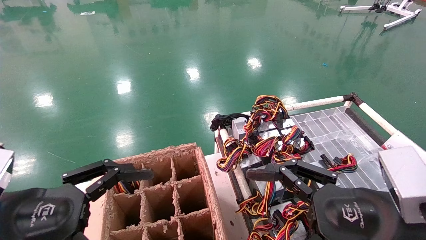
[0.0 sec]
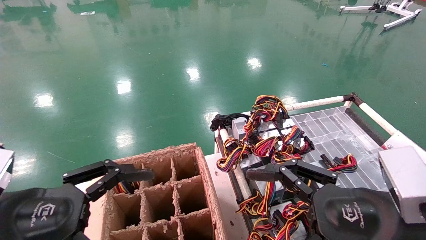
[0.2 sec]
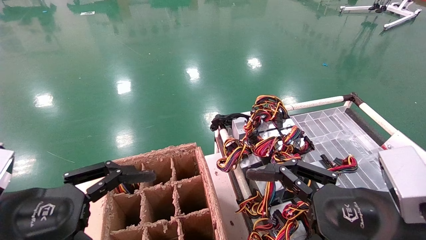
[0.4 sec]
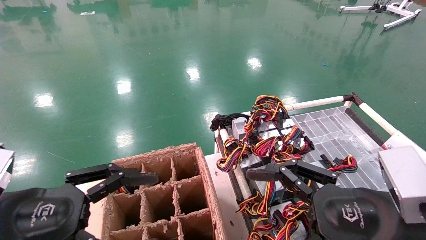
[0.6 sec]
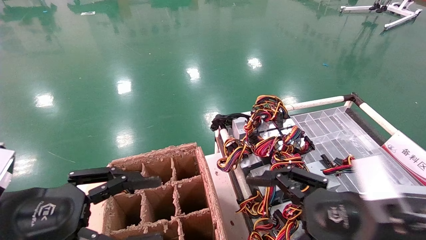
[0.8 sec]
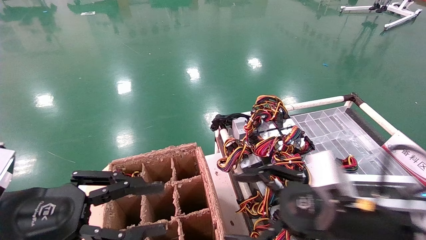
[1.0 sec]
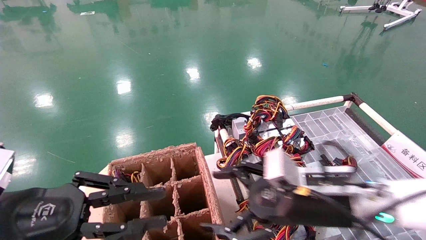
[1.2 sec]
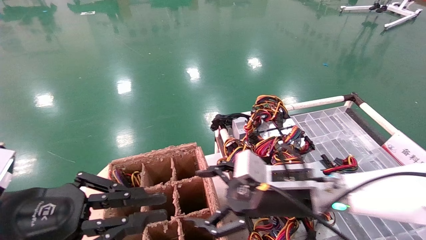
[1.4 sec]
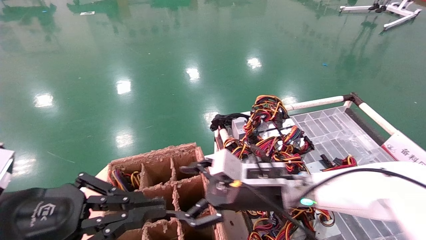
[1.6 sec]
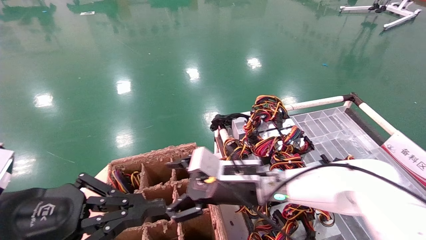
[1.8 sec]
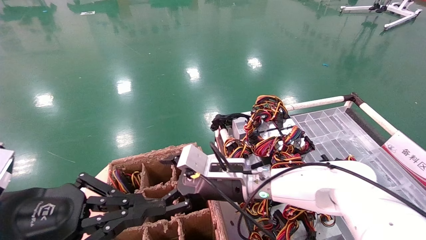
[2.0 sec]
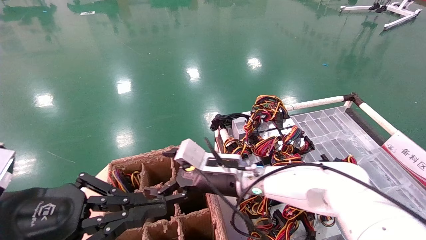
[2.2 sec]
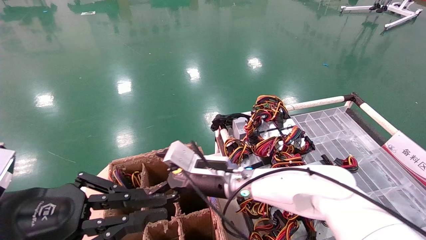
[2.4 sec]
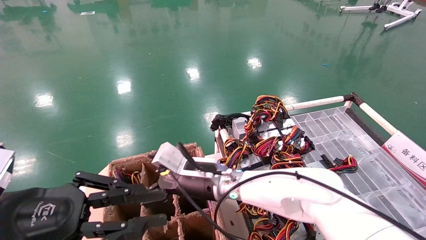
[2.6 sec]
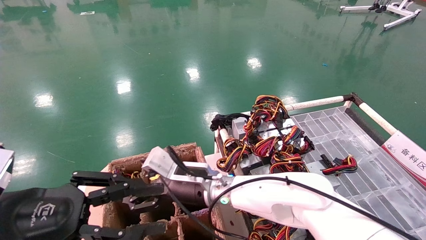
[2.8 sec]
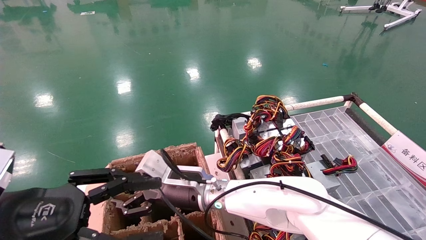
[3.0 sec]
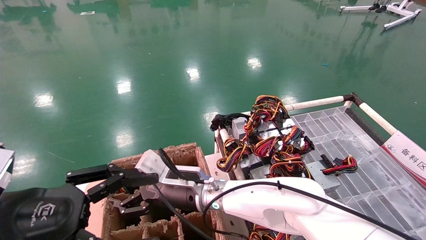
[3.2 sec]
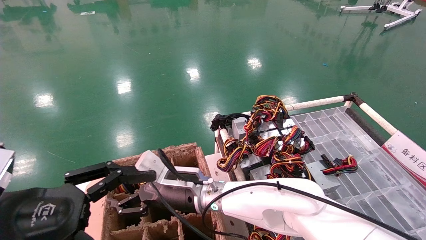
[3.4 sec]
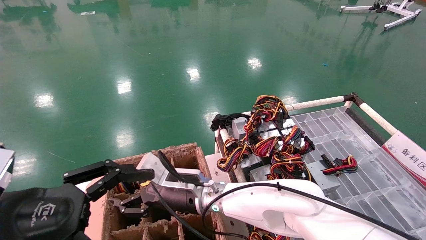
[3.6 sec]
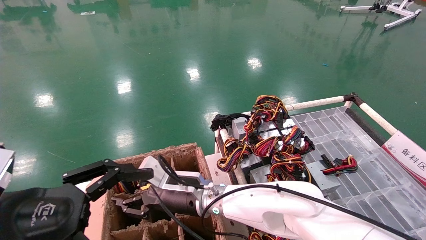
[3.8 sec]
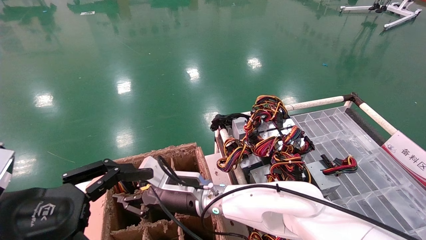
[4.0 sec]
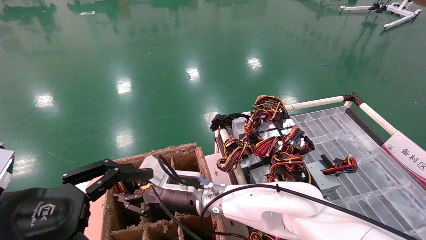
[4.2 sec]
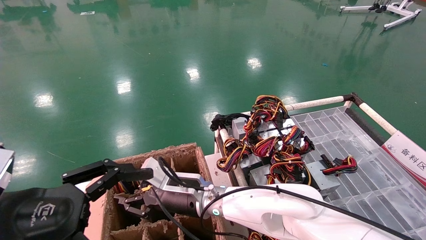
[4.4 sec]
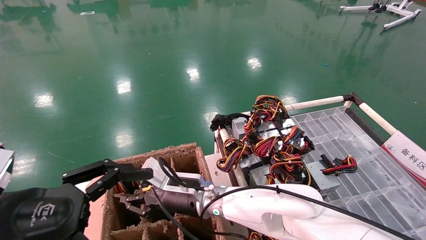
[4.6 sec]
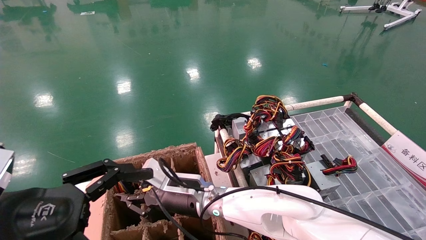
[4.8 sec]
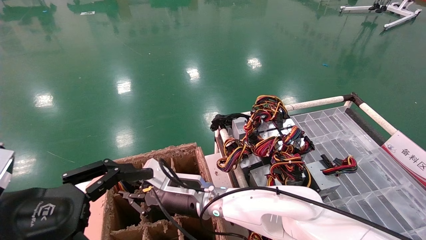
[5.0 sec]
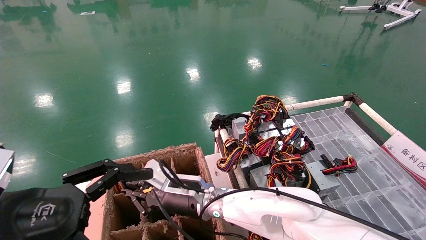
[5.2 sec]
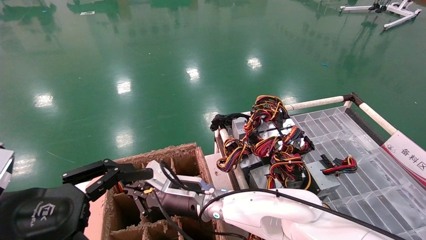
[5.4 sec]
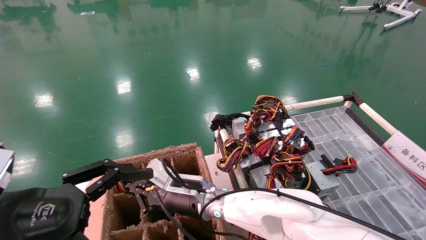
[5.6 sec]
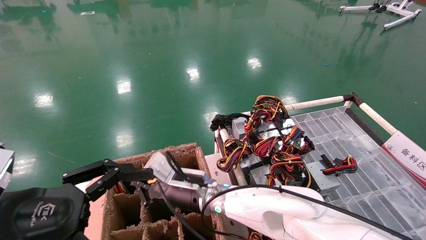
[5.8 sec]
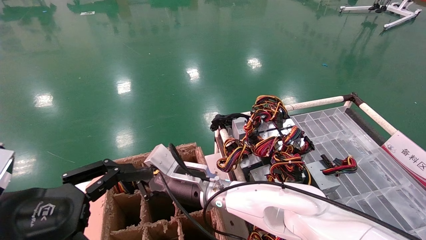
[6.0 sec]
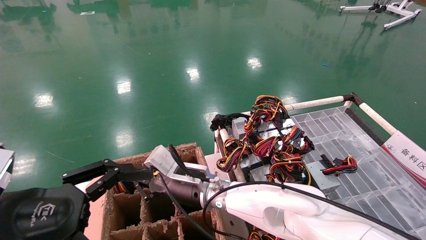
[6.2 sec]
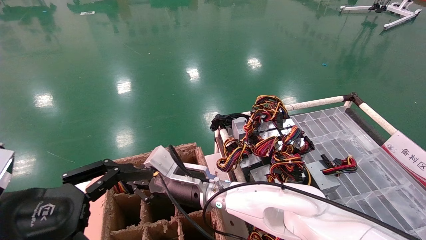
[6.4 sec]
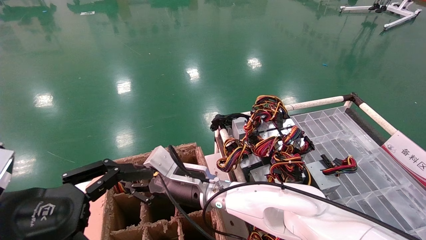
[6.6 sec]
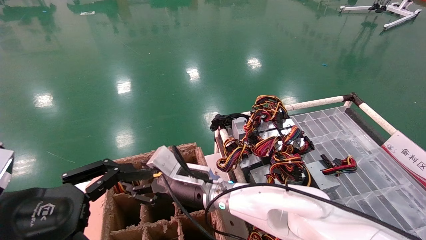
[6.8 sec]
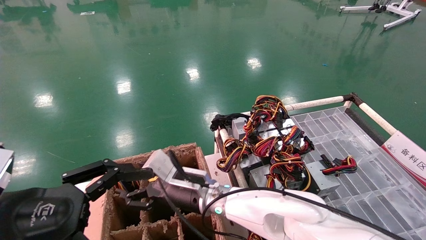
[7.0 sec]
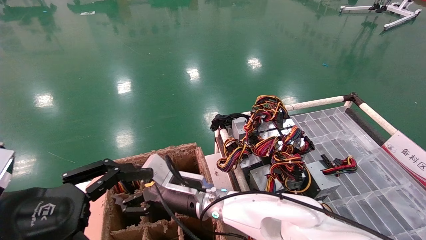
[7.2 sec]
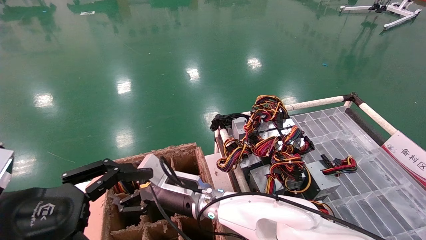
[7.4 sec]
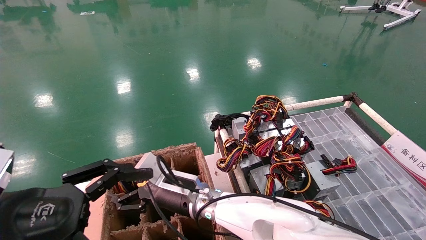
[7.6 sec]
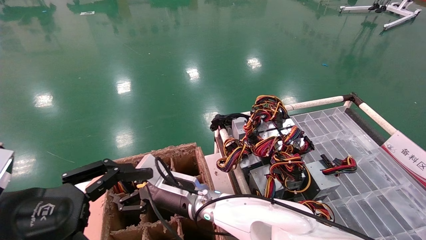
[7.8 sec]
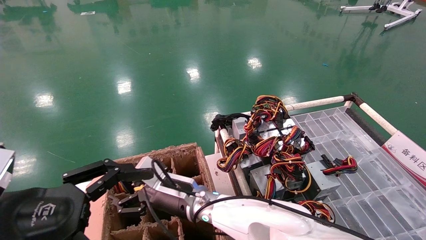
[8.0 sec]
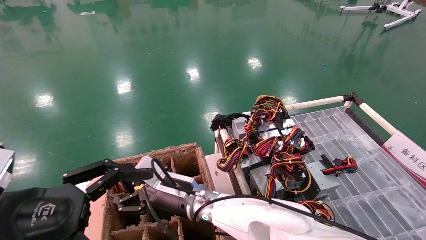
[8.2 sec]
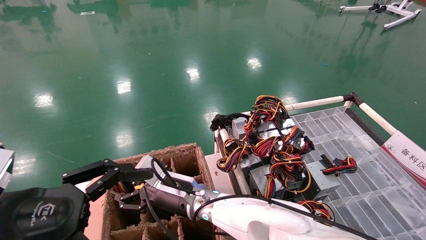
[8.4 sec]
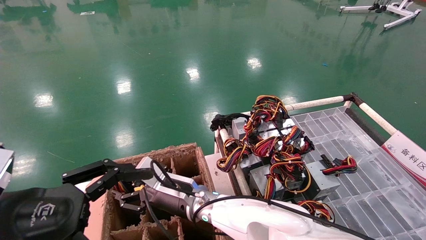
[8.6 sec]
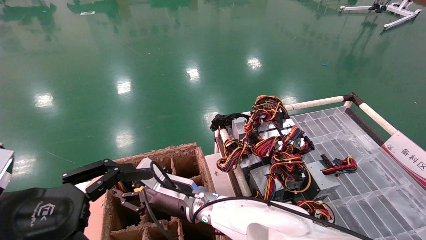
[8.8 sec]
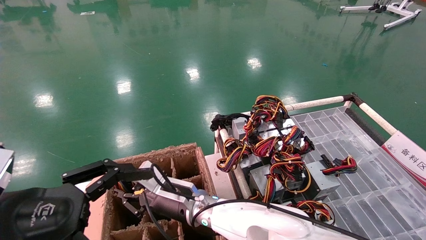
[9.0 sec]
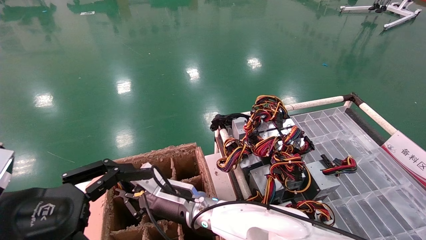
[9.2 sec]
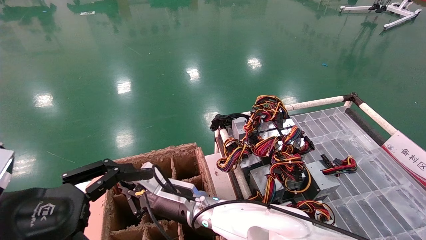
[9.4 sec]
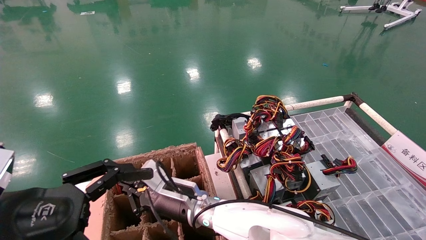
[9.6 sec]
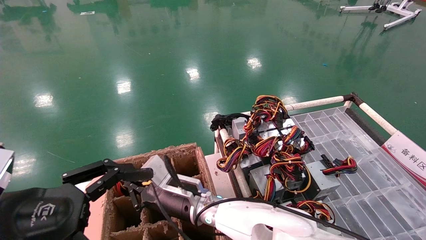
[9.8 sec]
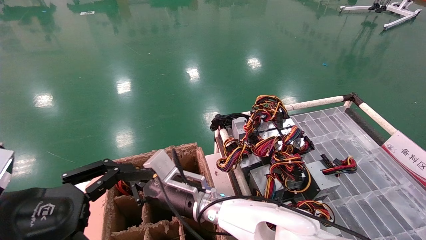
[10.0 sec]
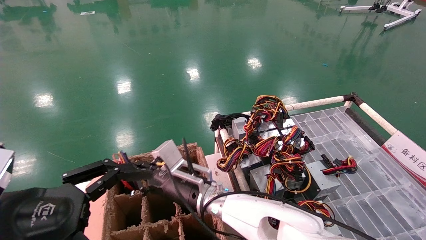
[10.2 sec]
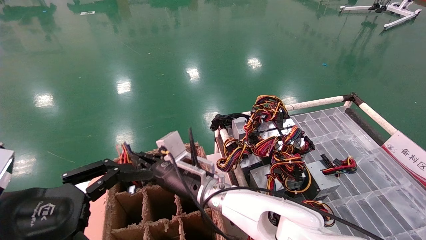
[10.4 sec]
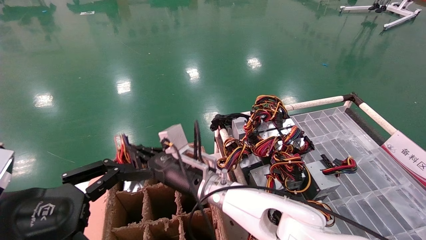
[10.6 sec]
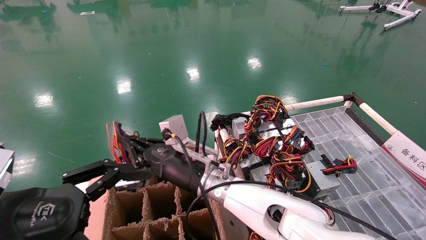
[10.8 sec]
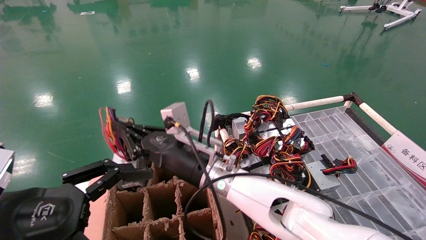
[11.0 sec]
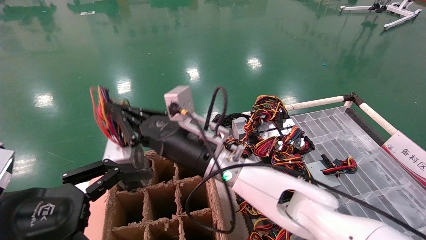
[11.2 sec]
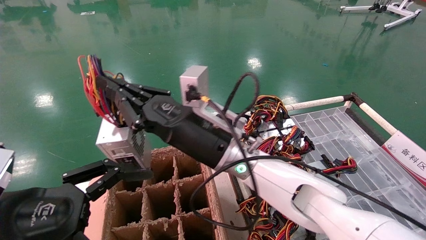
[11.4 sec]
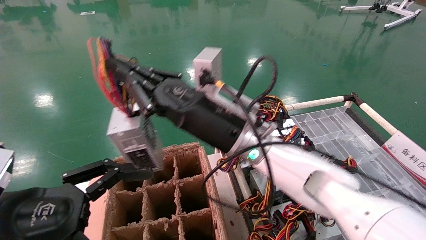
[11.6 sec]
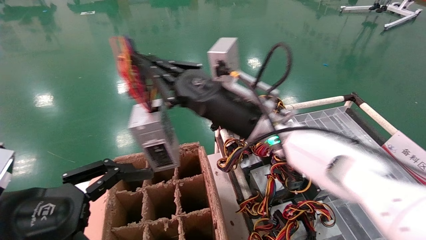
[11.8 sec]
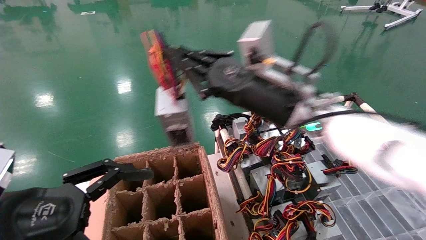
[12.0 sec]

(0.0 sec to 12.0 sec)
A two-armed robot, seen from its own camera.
Step, 0.8 sec - 9.6 sec: Grab and lift the power supply from the large box.
0.0 sec - 1.6 sec: The right gripper moves forward and to the left, about 20 cm, while the left gripper closes its fingers.
1.6 sec - 3.0 sec: The right gripper travels to the left by some 15 cm.
3.0 sec - 4.4 sec: The left gripper opens its fingers; the right gripper closes up.
4.4 sec - 6.0 sec: The right gripper closes.
6.0 sec - 7.6 sec: The right gripper opens its fingers.
7.6 sec - 9.0 sec: The right gripper closes up.
9.0 sec - 10.4 sec: The right gripper closes.
10.4 sec - 12.0 sec: The right gripper goes roughly 25 cm upward and to the right.

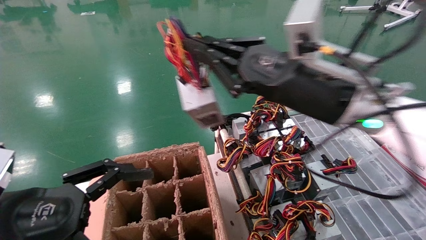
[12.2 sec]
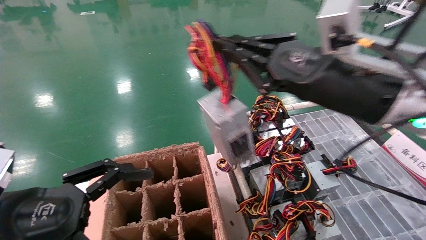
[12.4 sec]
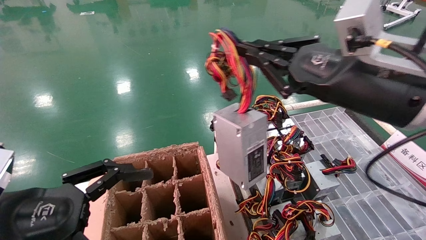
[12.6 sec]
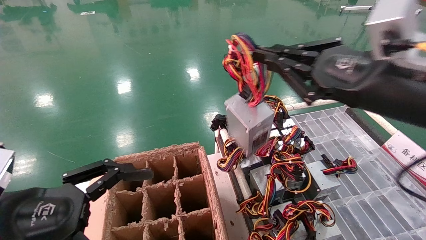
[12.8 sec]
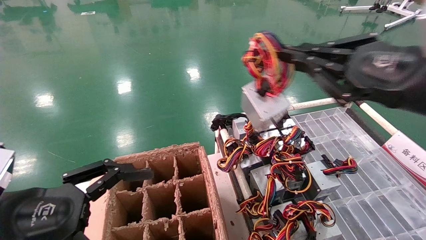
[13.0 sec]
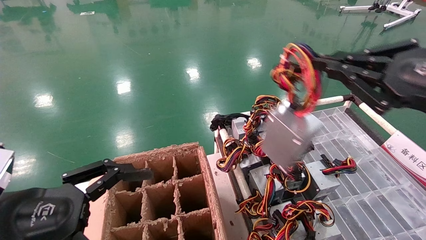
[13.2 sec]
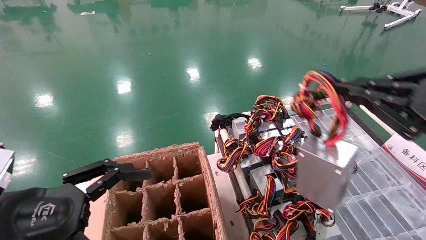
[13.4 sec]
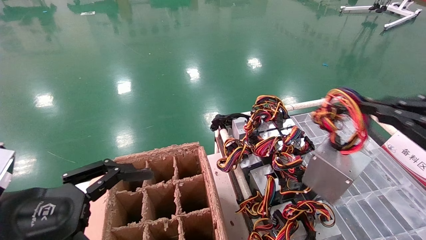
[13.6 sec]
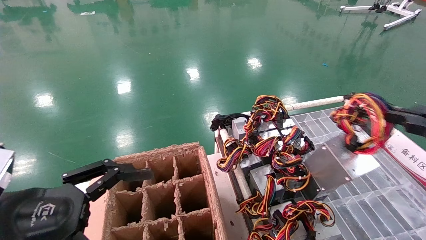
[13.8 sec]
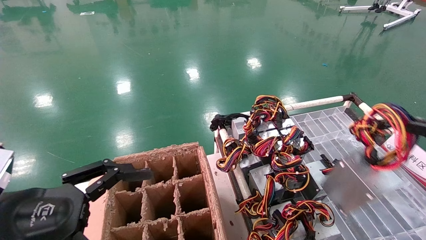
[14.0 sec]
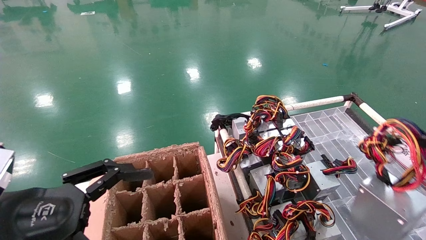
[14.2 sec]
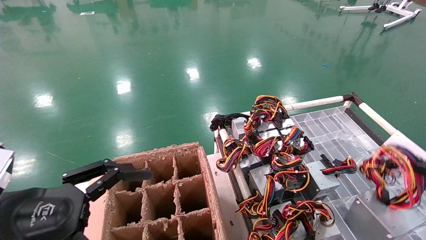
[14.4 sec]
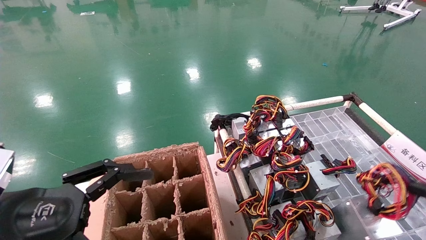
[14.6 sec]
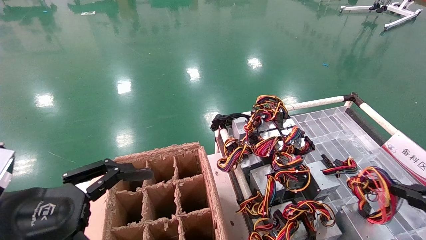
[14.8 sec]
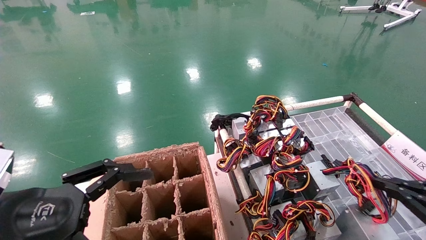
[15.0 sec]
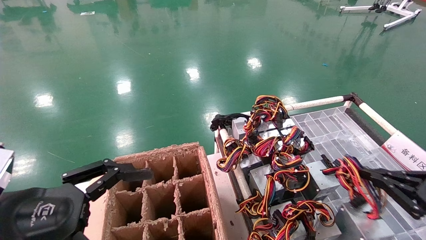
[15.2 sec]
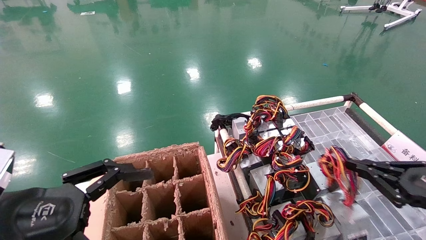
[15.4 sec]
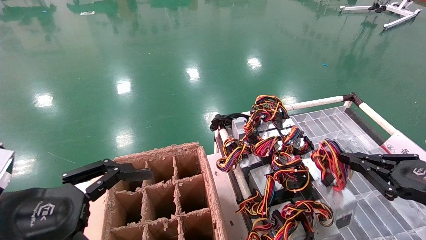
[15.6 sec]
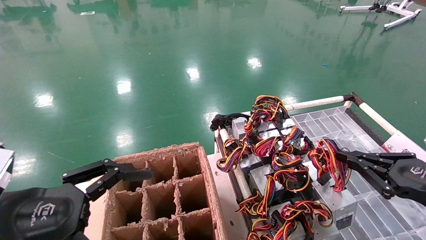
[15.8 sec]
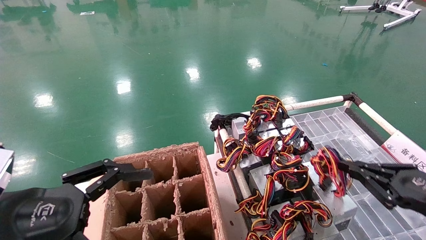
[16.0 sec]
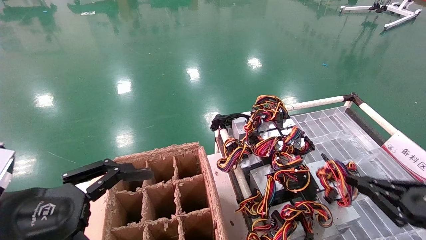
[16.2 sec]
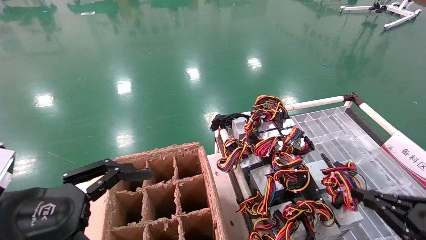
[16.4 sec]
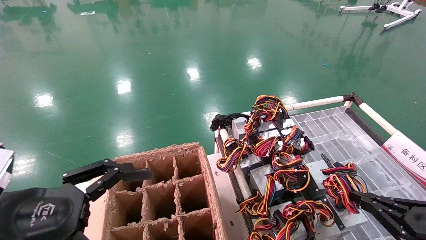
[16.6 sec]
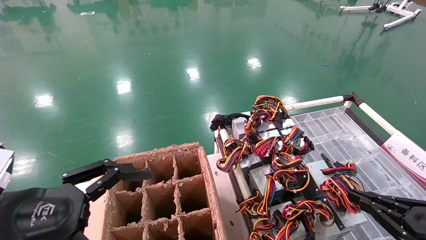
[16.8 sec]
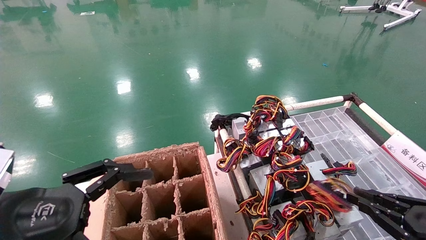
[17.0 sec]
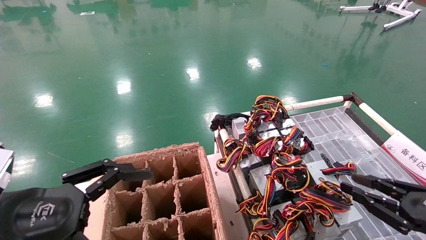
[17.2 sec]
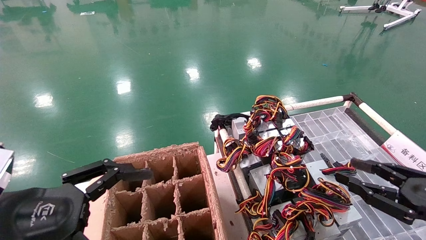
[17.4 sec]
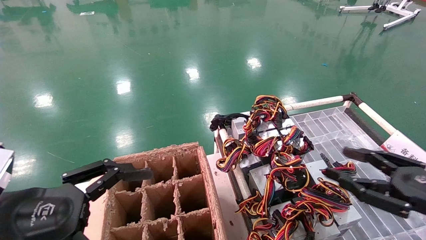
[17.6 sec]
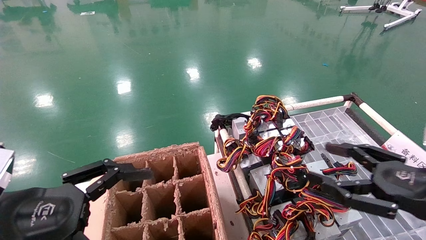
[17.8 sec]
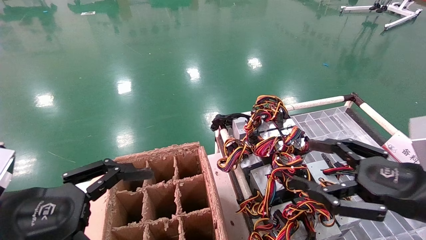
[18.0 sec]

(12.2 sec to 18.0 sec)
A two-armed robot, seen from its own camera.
Step, 12.2 sec - 17.0 sec: Place the power supply on the operating table.
12.2 sec - 13.6 sec: The right gripper shifts roughly 25 cm to the right and backward.
13.6 sec - 15.0 sec: The right gripper shifts about 10 cm downward.
15.0 sec - 16.6 sec: The right gripper moves downward, about 5 cm.
16.6 sec - 18.0 sec: The right gripper heads upward and to the left, covering roughly 15 cm, and opens up.
